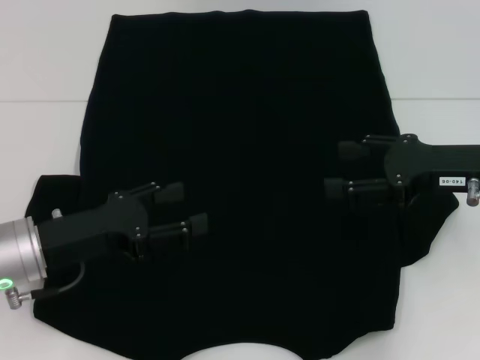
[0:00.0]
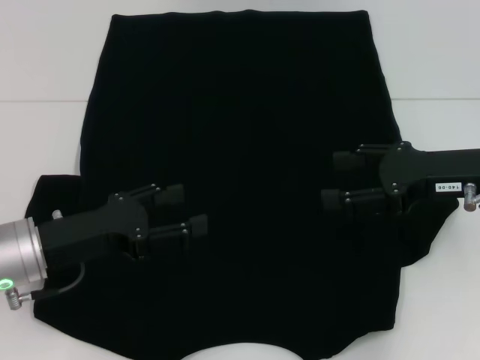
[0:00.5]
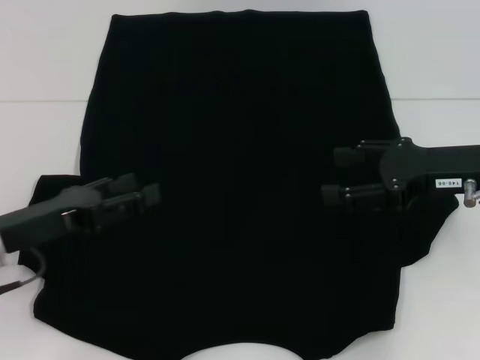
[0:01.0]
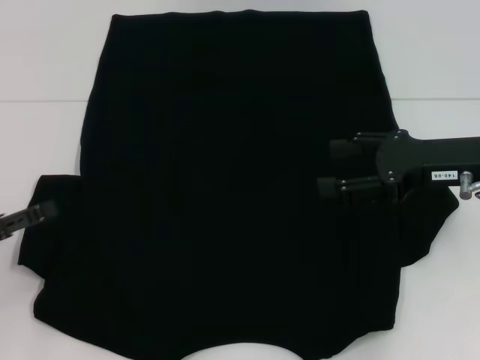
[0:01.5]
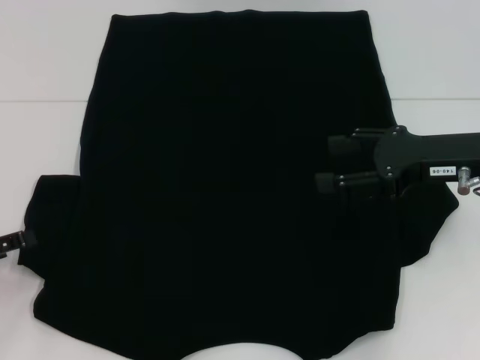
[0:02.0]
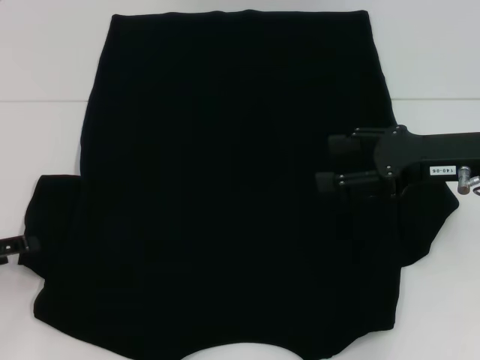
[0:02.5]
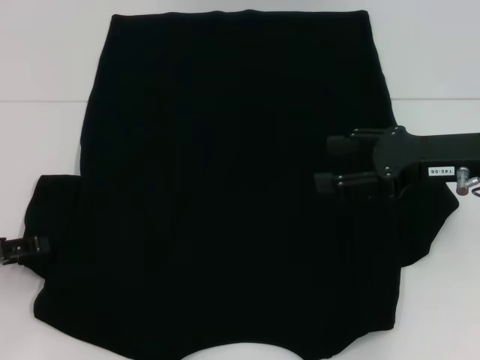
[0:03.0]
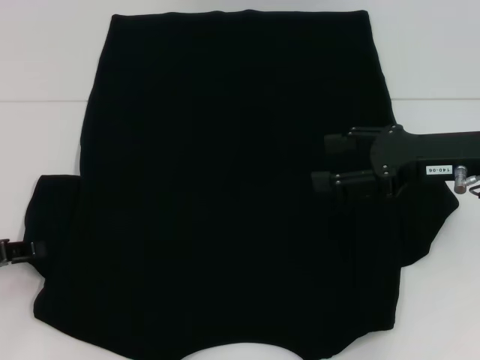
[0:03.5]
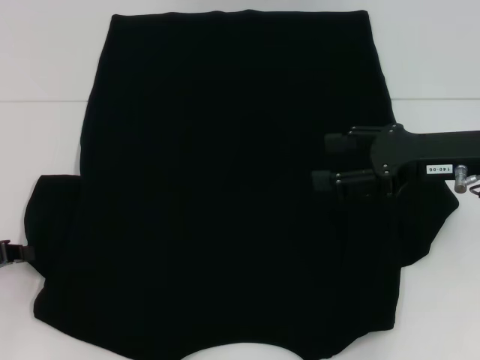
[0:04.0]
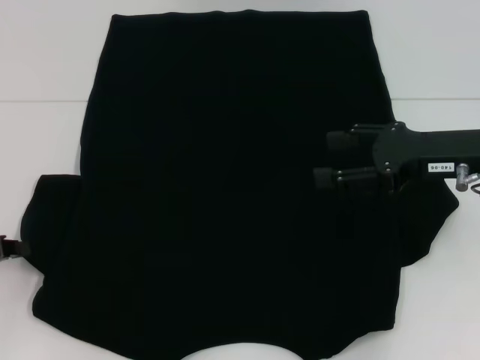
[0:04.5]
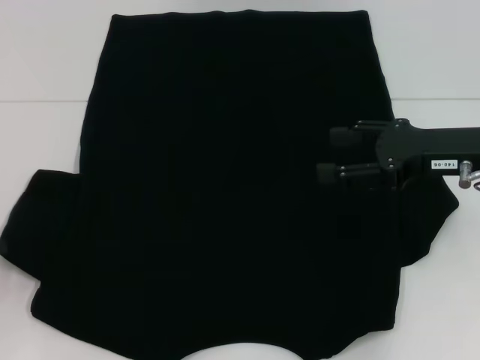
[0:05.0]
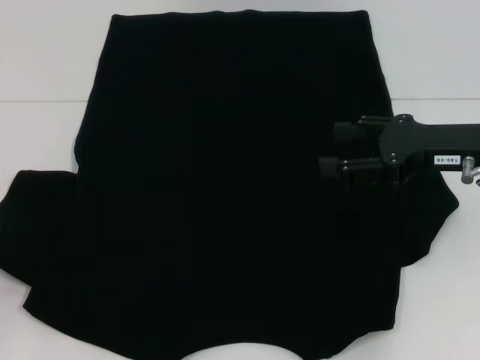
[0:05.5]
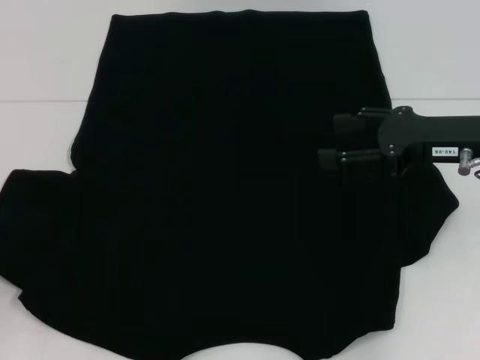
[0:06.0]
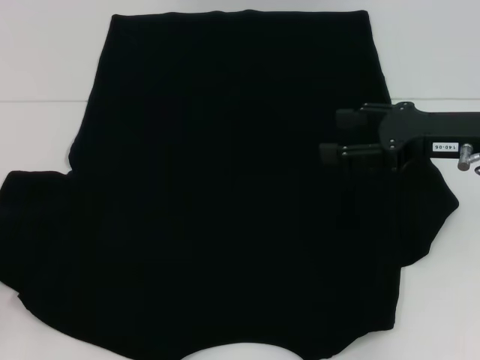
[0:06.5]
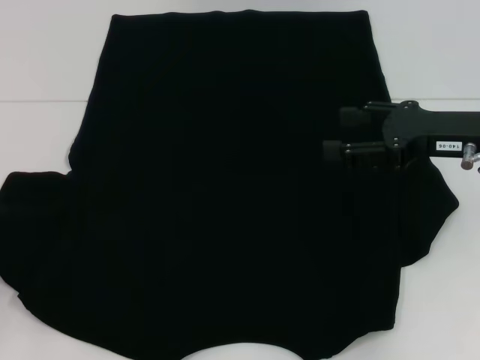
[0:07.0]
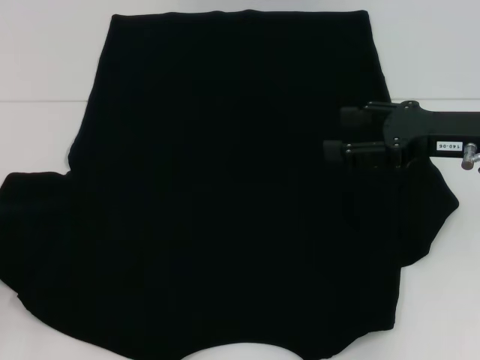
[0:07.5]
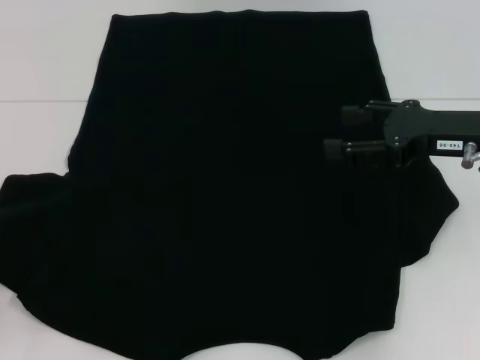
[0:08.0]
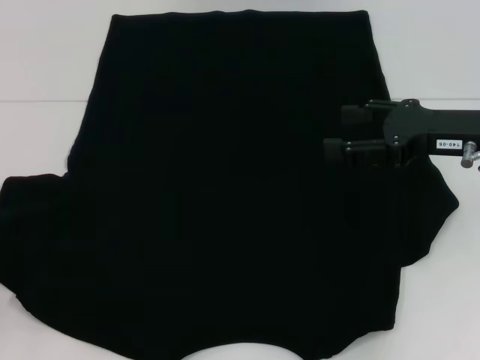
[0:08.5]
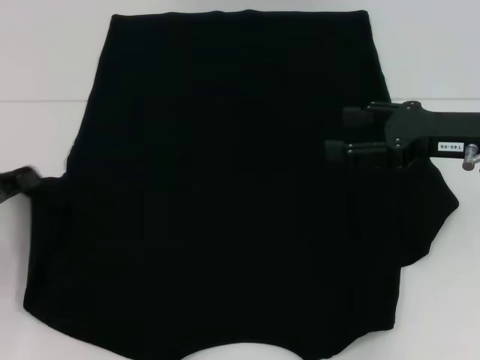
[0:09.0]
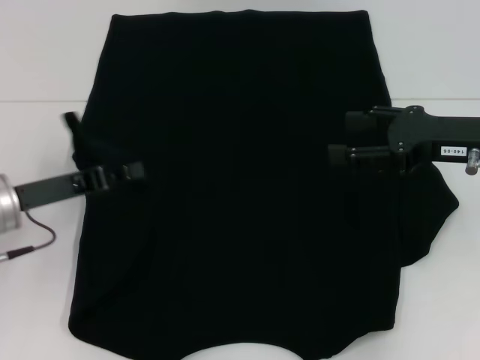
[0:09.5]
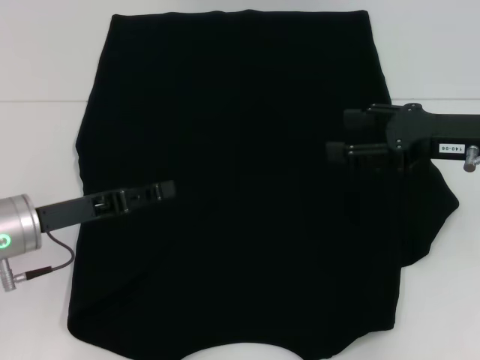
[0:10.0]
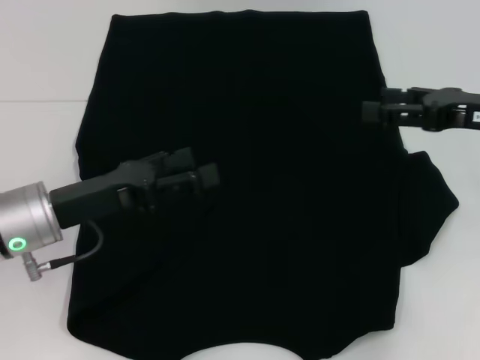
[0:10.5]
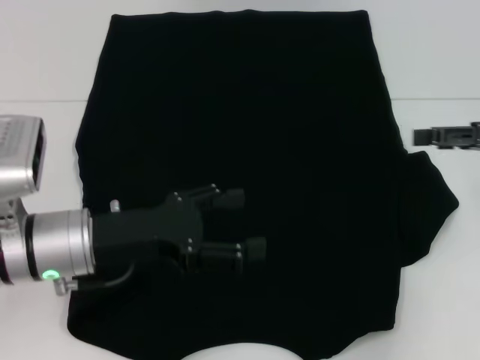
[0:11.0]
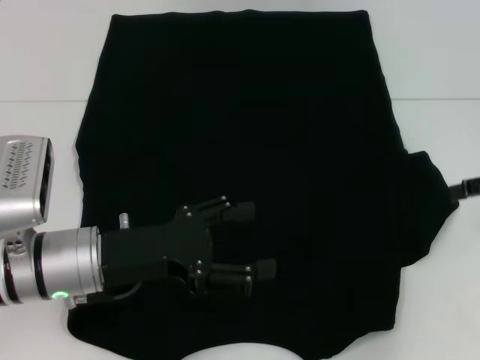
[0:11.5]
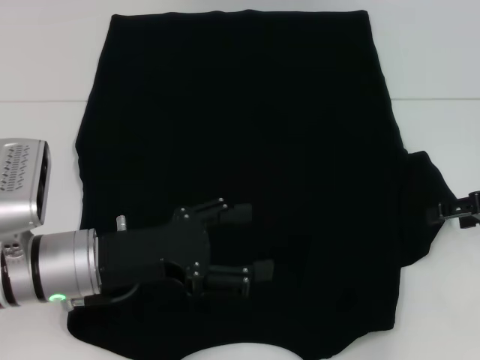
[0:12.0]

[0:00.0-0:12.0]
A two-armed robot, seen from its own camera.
Step, 0:00.0 to 0:10.0: Fold the bottom left sleeve with your left hand.
0:00.0 to 0:02.0: The left gripper shifts some 15 cm to the left.
0:04.0 to 0:08.0: The grippers make only small movements.
0:08.0 to 0:10.0: The left gripper goes some 15 cm to the right and forward.
0:10.0 to 0:12.0: Both grippers travel together to the right, about 5 cm. The left gripper opens.

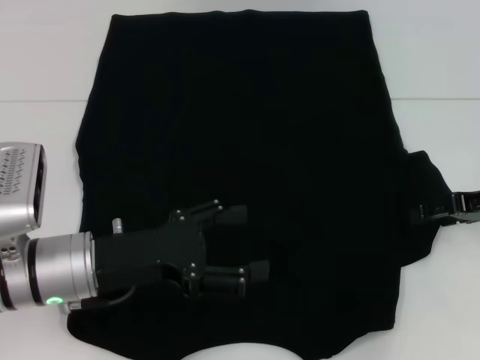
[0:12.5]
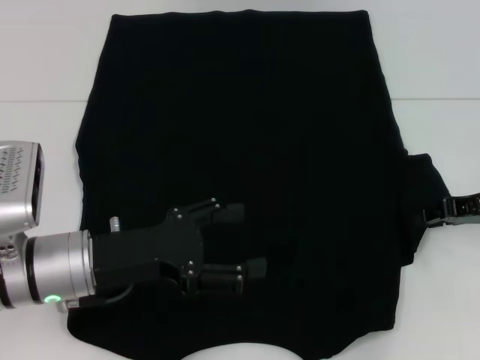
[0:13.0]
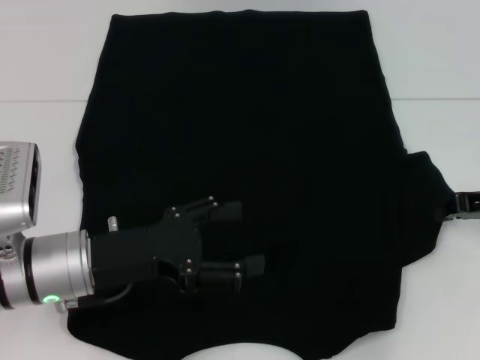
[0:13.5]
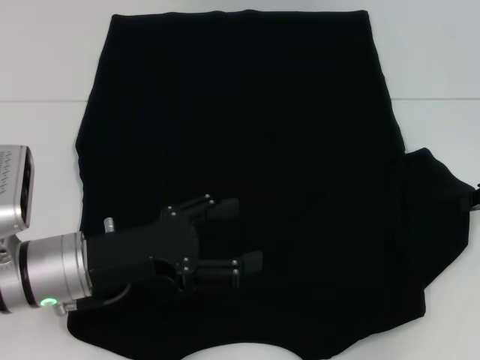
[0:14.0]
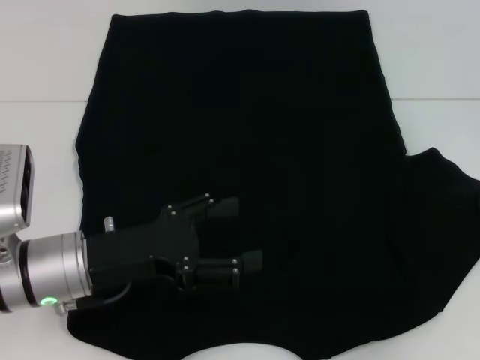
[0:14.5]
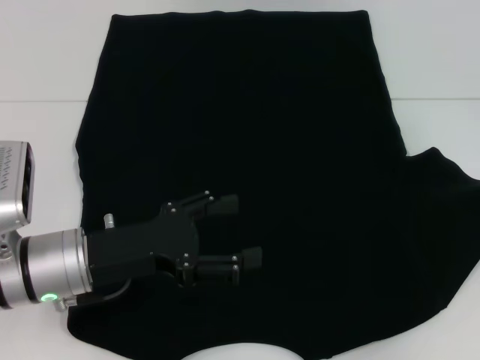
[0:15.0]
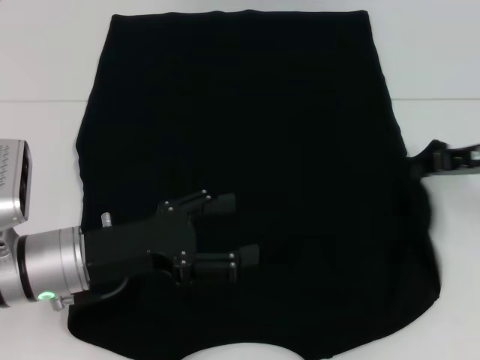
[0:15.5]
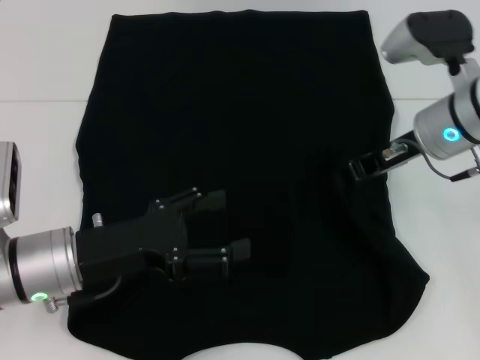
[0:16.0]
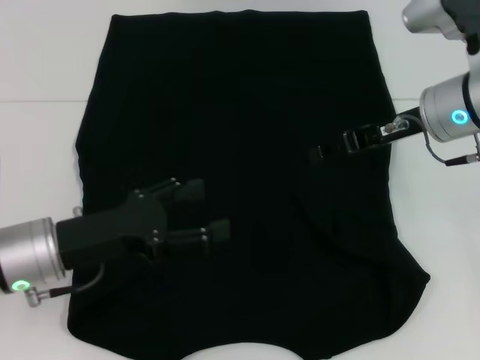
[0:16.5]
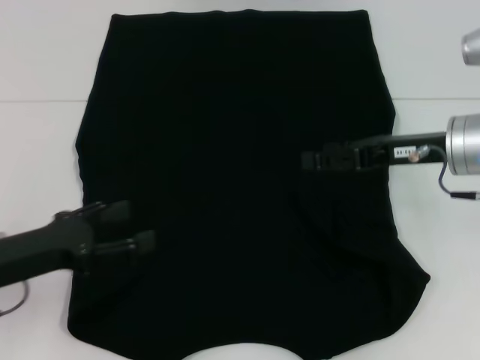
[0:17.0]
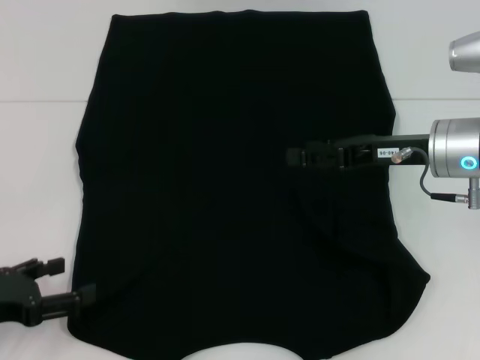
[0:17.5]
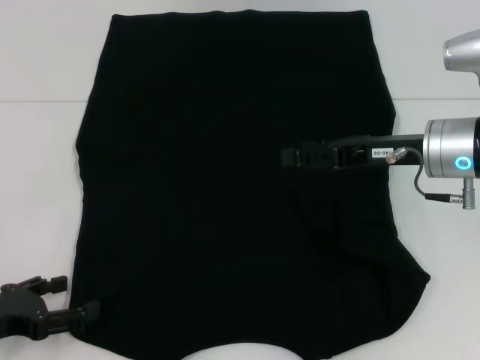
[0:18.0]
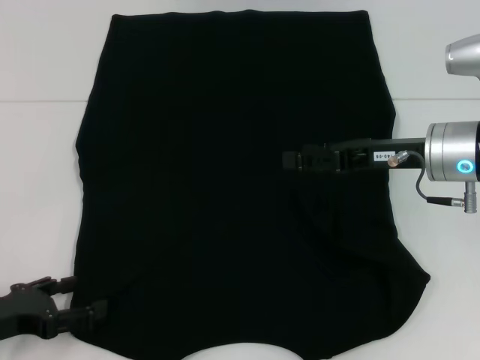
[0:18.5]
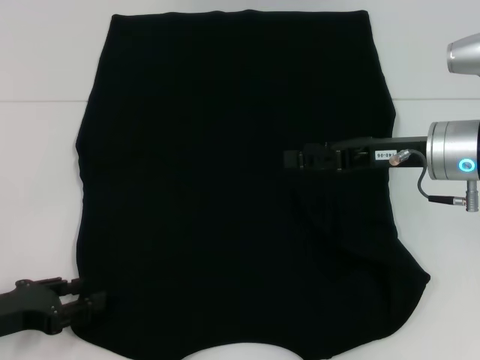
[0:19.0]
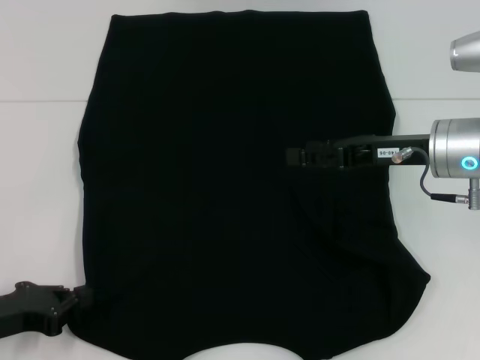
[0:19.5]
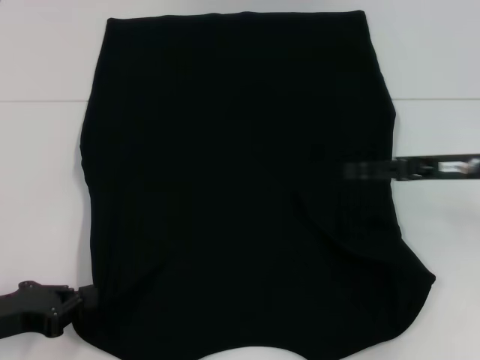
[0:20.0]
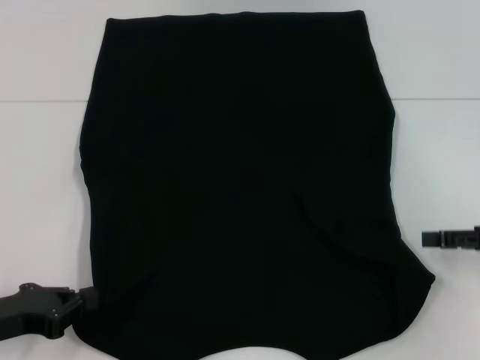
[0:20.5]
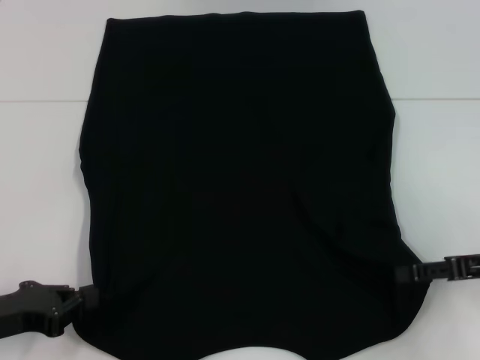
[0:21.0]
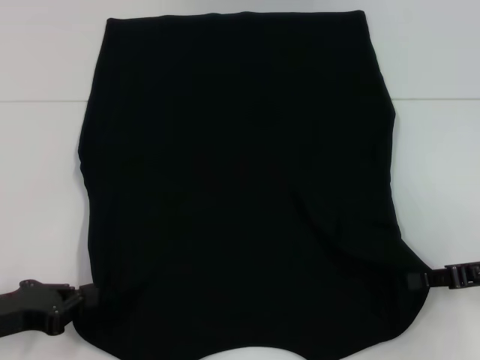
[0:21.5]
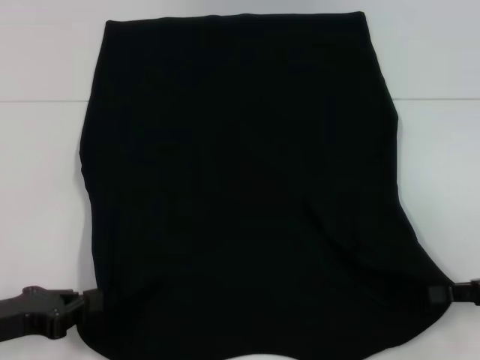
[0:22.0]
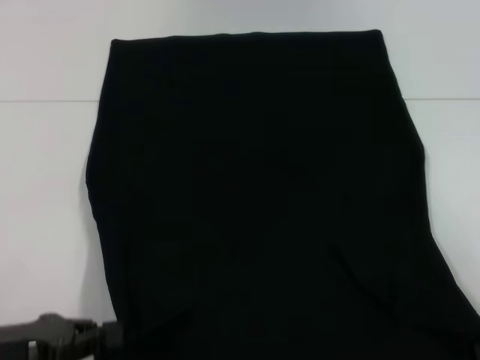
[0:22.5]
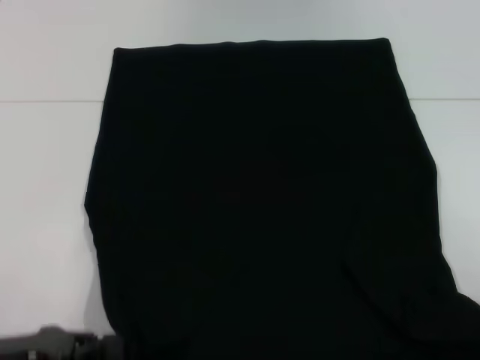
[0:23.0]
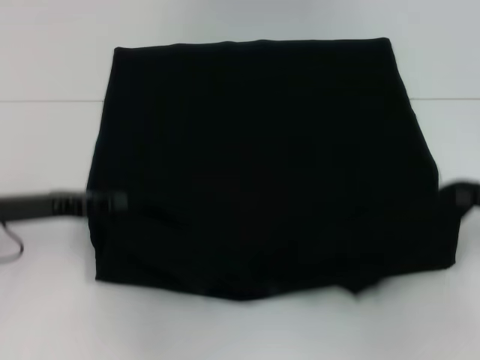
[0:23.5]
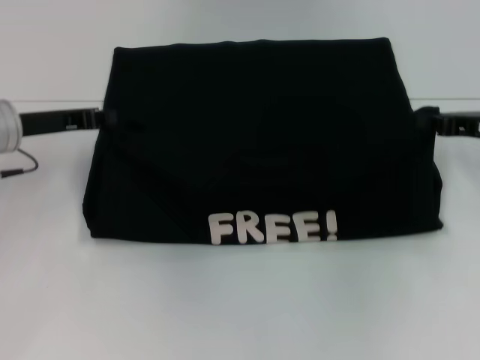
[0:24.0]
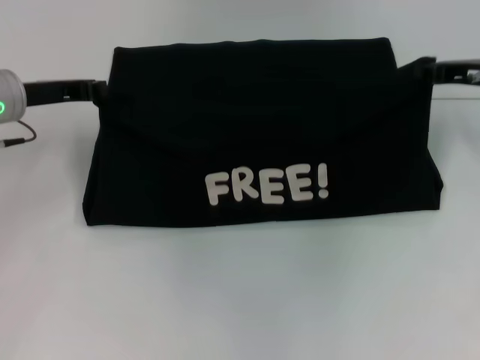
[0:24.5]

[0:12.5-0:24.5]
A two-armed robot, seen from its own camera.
Step, 0:12.5 to 0:16.0: Fold the bottom right sleeve with your right hand.
Step, 0:16.5 to 0:19.5: Grab the bottom left corner with your left hand.
Step, 0:20.0 to 0:22.0: Grab the bottom right corner with your right hand.
0:12.5 to 0:14.5: The right gripper closes up.
0:14.5 to 0:16.5: The right gripper goes some 15 cm to the left, and opens its fingers.
0:16.5 to 0:18.5: The right gripper shifts by roughly 5 cm, and opens, while the left gripper shifts approximately 10 cm to the left and backward.
0:18.5 to 0:20.5: The left gripper closes its fingers; the right gripper moves to the right and backward, roughly 15 cm.
0:20.5 to 0:22.5: The right gripper travels backward by roughly 10 cm, and closes up.
0:22.5 to 0:24.5: Both grippers travel together forward, approximately 20 cm.

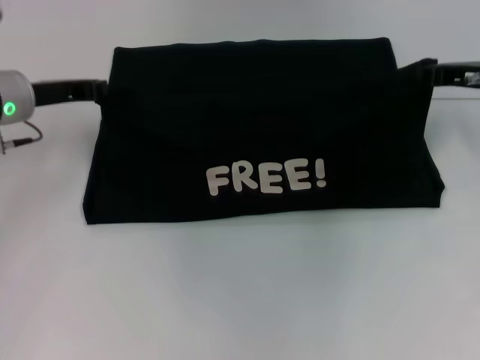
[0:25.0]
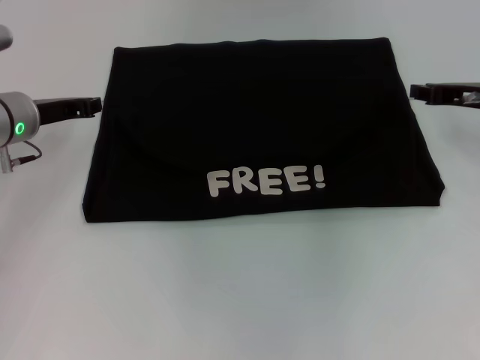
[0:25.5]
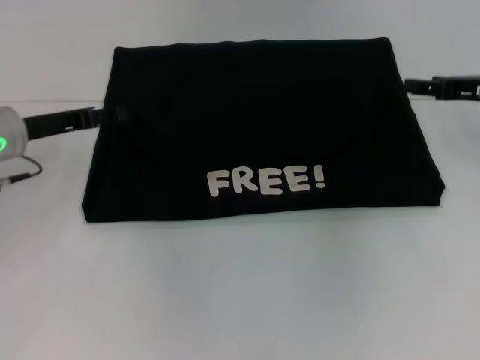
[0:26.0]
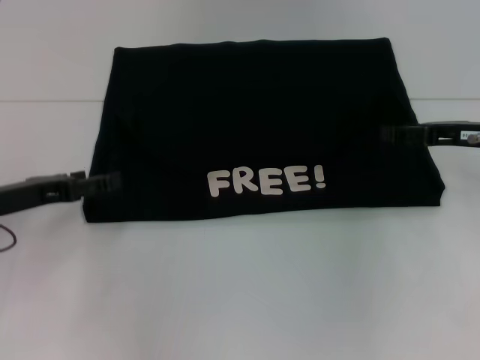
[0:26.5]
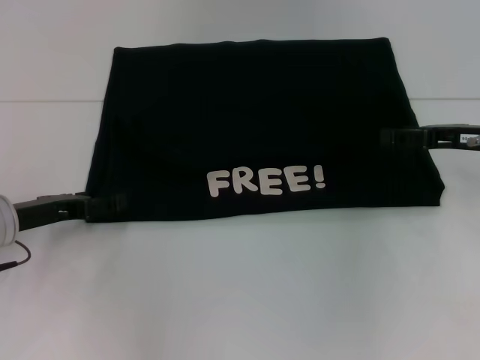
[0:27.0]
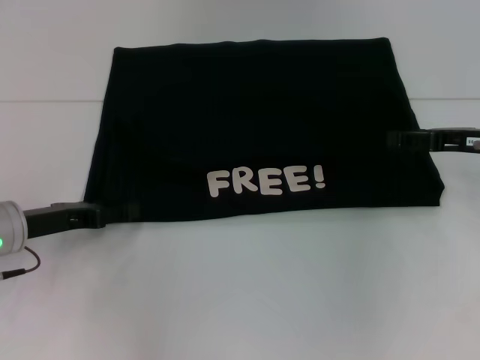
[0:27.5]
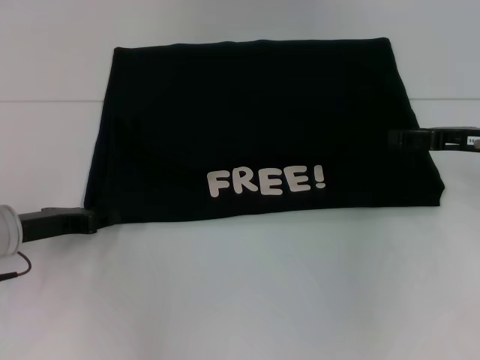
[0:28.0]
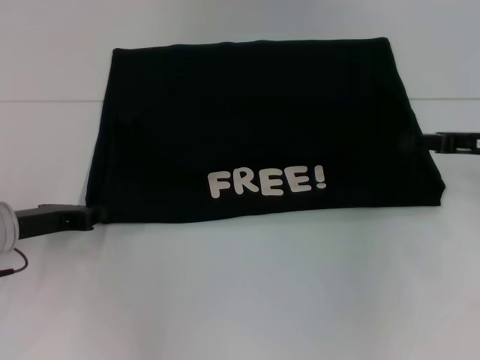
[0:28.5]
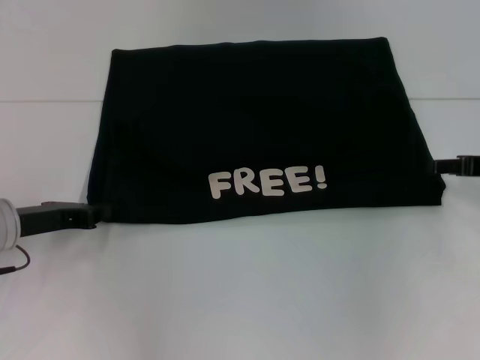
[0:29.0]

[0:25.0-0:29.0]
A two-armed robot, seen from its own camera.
0:25.0 to 0:27.0: The right gripper is displaced backward by about 5 cm, and opens. The left gripper shifts roughly 15 cm backward and downward, and opens up.
0:27.0 to 0:29.0: The left gripper closes its fingers.
